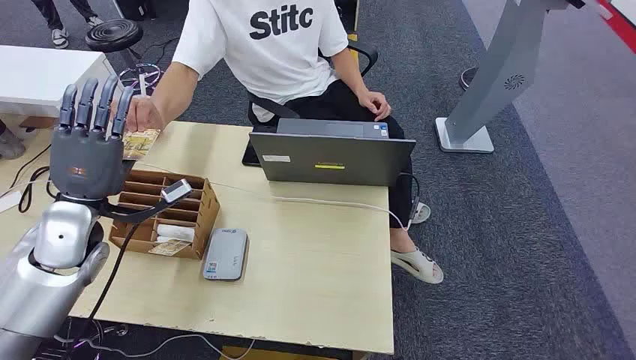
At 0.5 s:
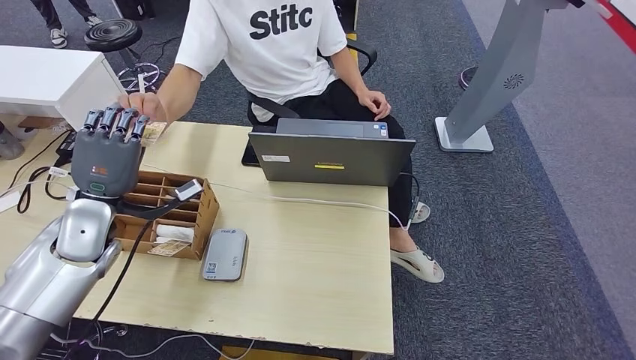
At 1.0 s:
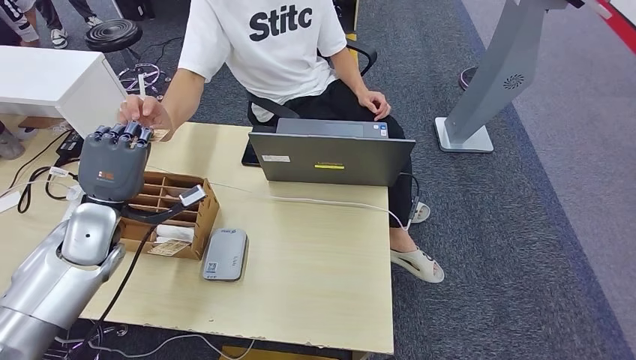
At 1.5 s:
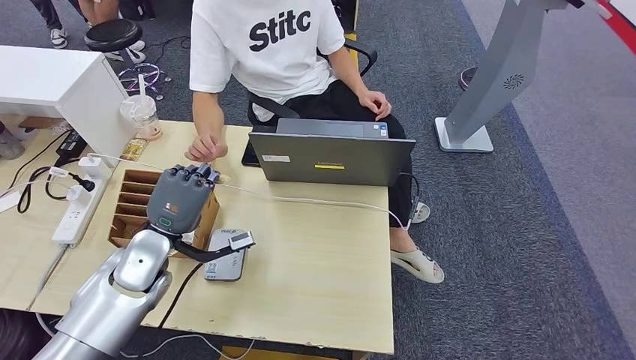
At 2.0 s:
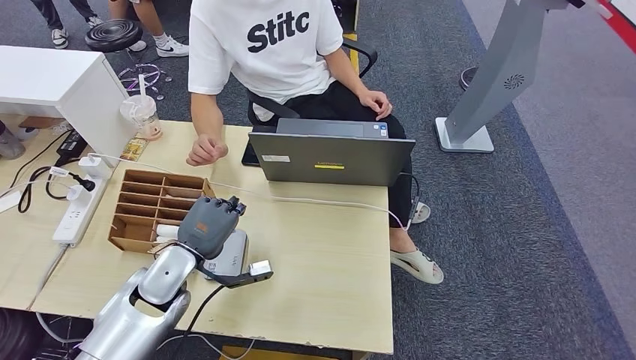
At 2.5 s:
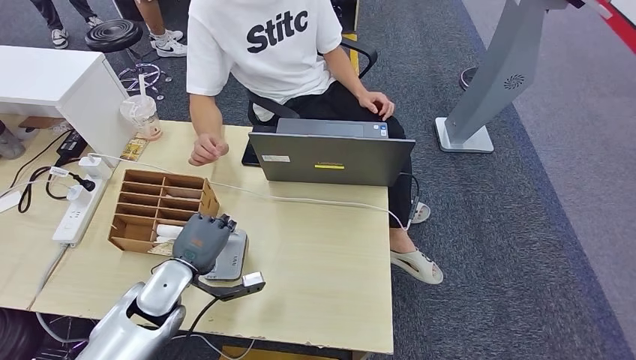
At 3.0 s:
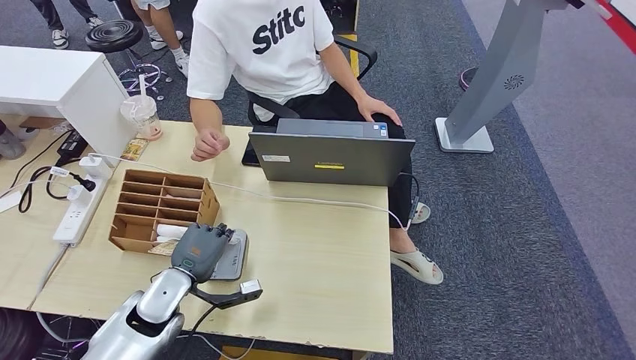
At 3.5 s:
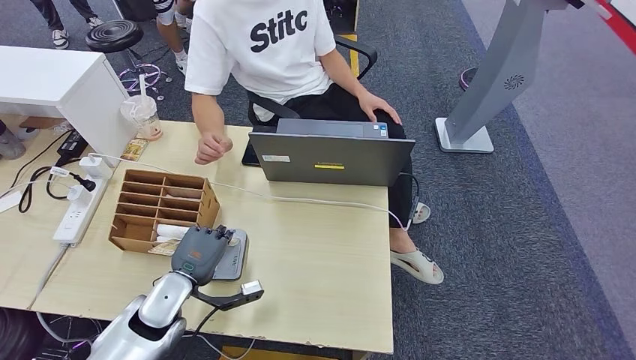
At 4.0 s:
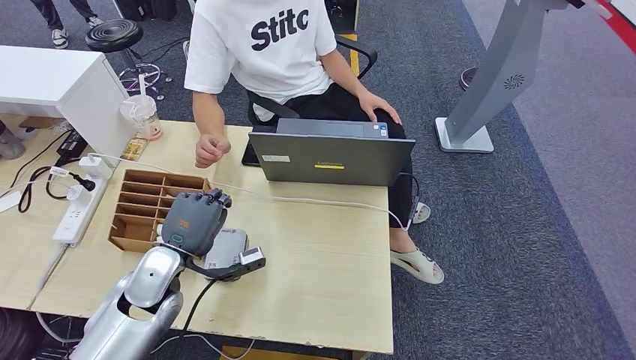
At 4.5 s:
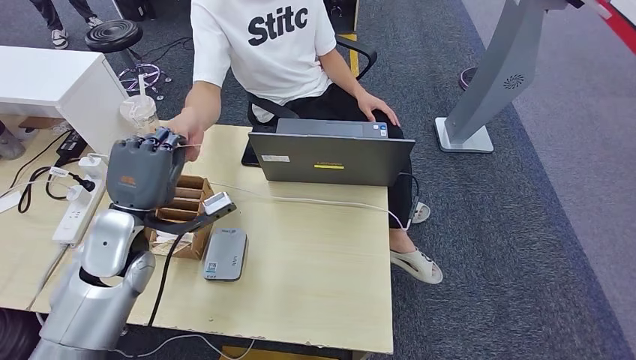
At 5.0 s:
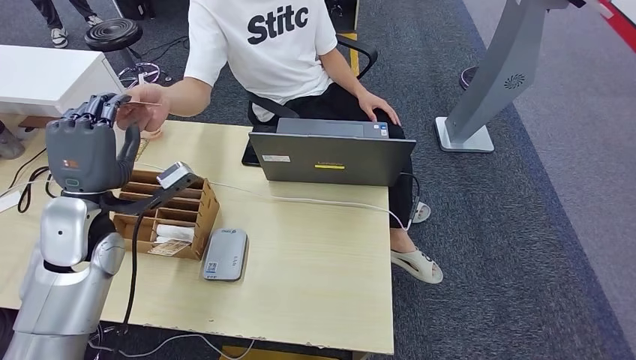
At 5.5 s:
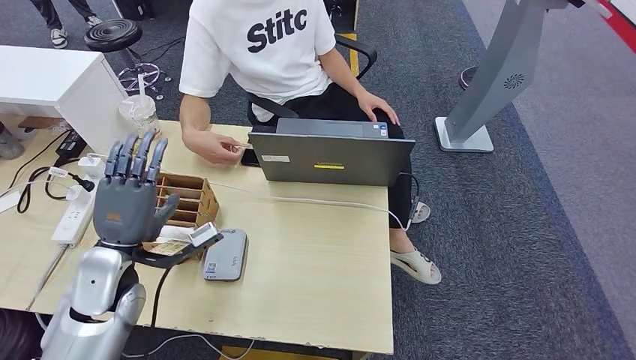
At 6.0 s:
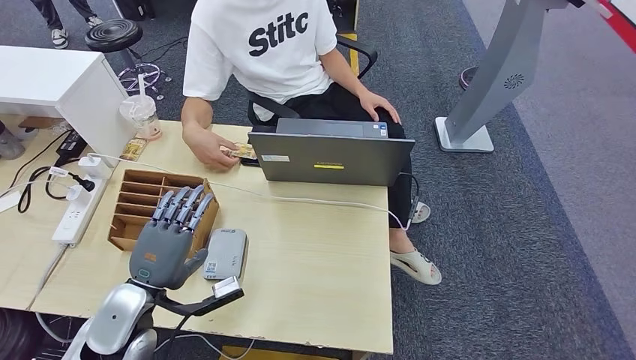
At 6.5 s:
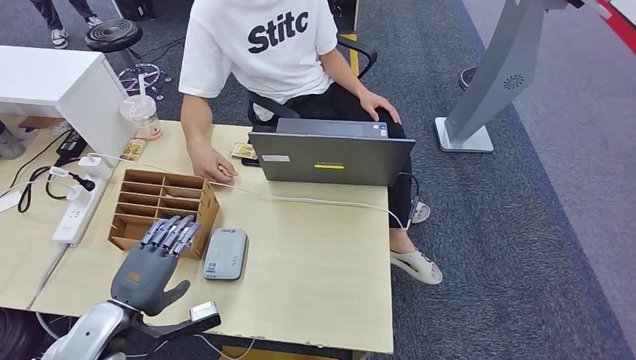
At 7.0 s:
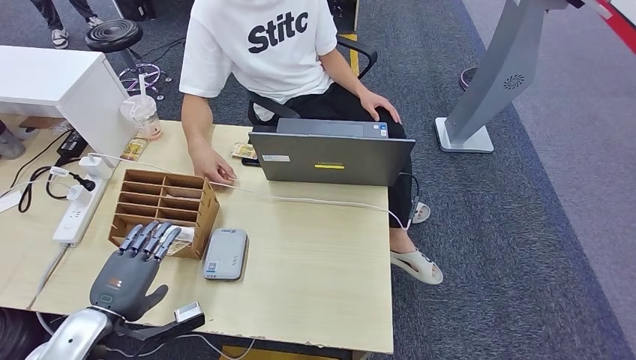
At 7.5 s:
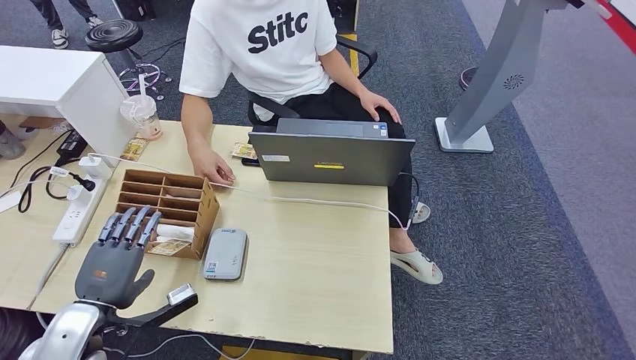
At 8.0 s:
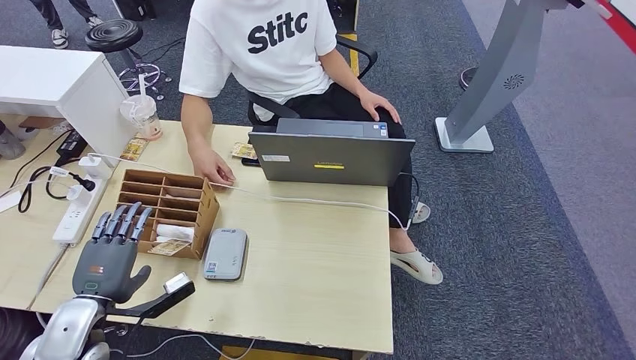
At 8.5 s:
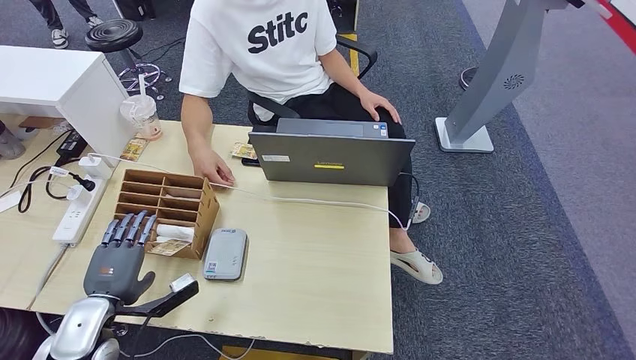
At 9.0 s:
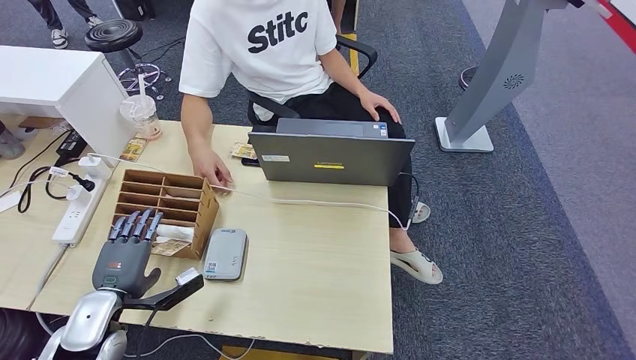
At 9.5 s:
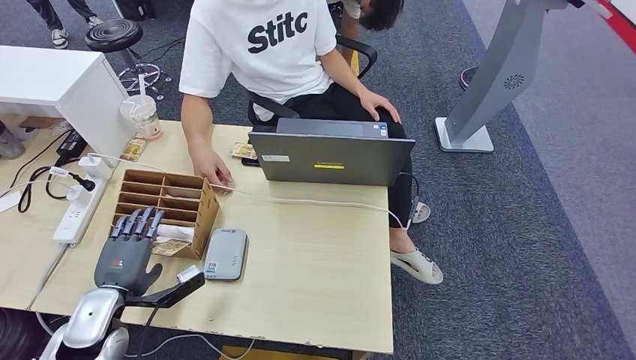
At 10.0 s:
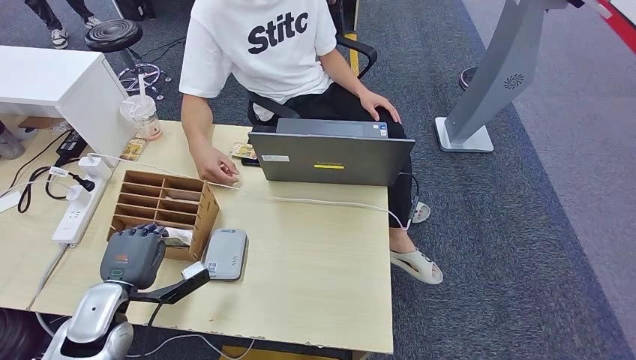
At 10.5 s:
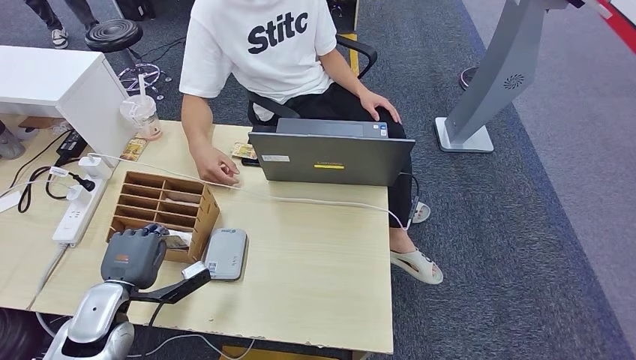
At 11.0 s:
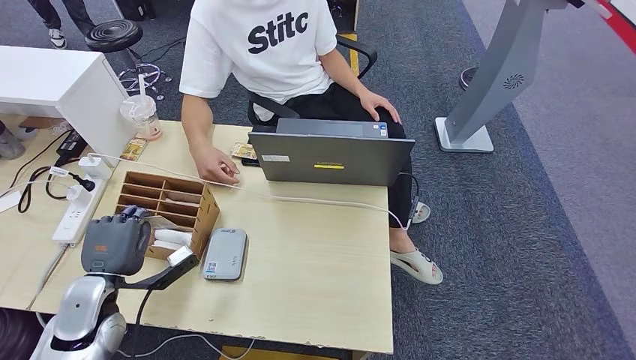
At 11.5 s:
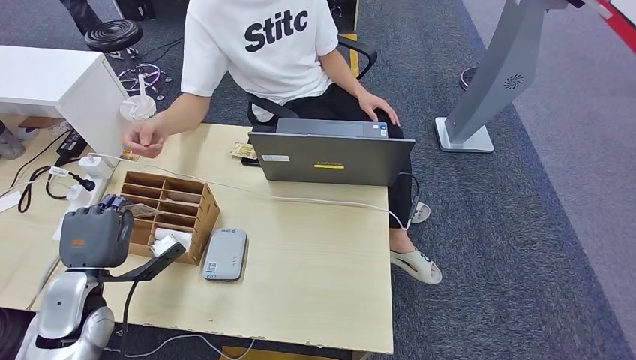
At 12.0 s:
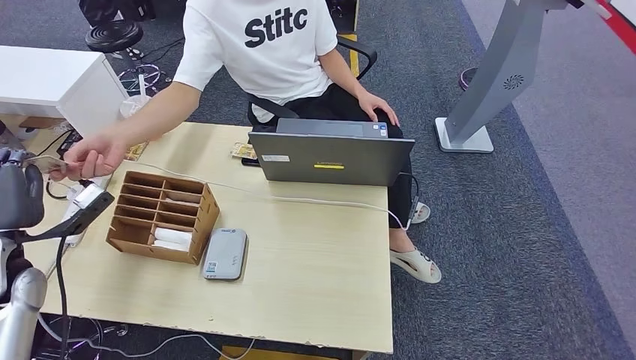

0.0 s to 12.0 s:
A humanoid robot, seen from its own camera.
Step, 0.0 to 1.5 s: Take the ID card from the person's hand.
Step, 2.0 to 4.0 s: Place the ID card on the card reader.
Step, 4.5 to 7.5 s: Hand the ID card to the person.
Step, 8.0 to 11.5 s: Pick up the room key from the key card box.
2.0 to 4.0 s: The hands make only small movements.
4.0 to 6.0 s: The left hand travels backward by about 5 cm, and reaches some 10 cm upward, then returns.
6.0 to 8.0 s: The left hand goes approximately 10 cm to the left.
8.0 to 10.0 s: The hands move only a little.
10.0 to 12.0 s: The left hand moves upward, to the left and forward, approximately 15 cm.

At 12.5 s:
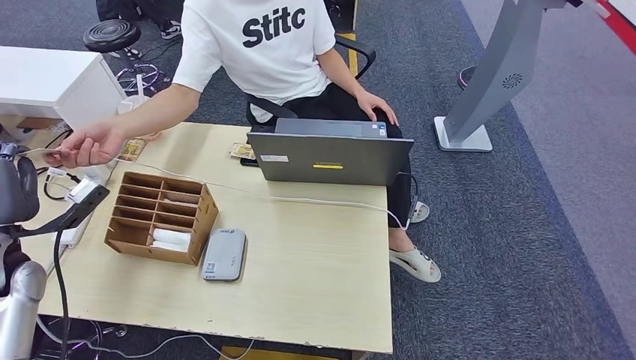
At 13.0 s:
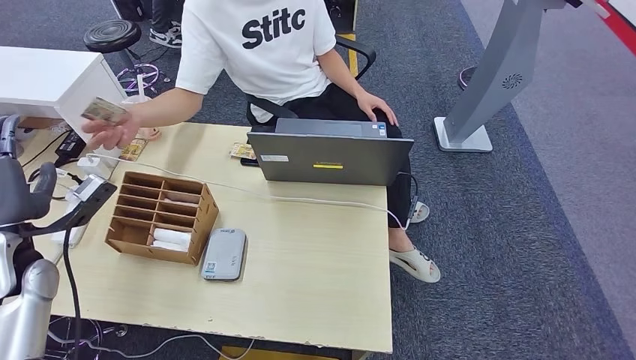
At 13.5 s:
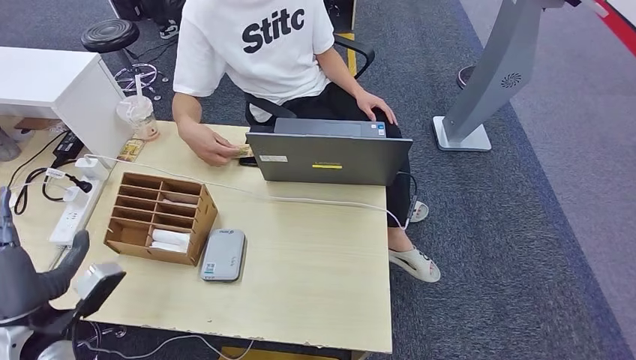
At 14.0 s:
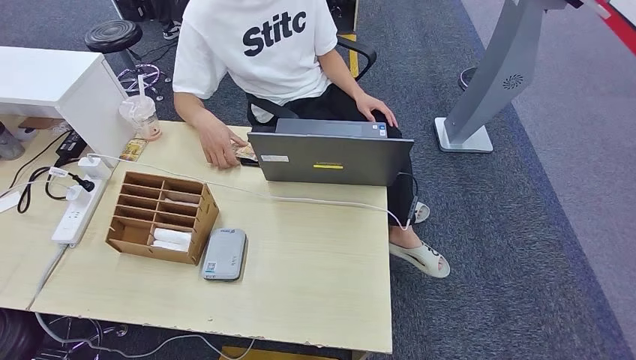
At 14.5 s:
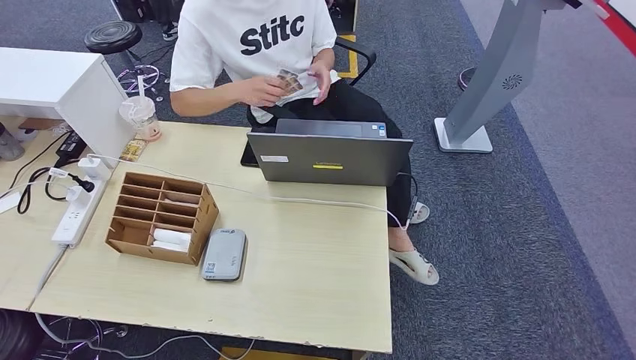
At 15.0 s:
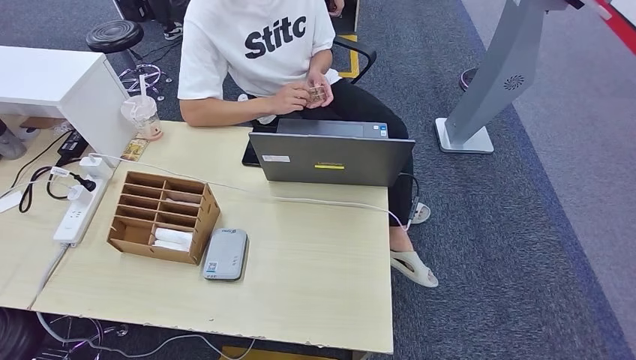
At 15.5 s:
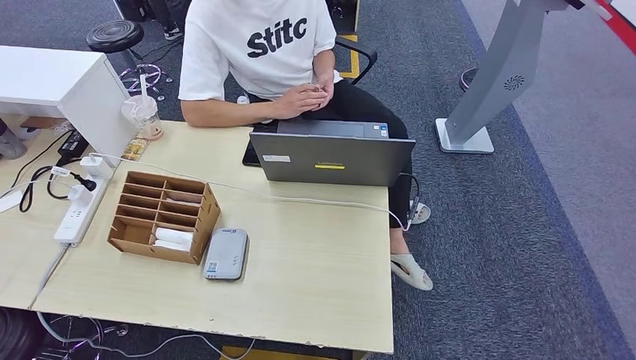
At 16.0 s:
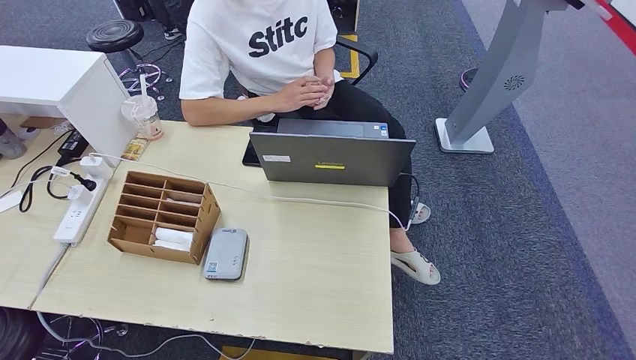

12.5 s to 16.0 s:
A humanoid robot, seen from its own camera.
Step, 12.5 to 16.0 s: Hand the room key to the person.
12.5 to 14.5 s: The left hand is displaced backward and downward by roughly 40 cm.
14.5 to 16.0 s: The left hand heads to the right and downward, covering roughly 15 cm.

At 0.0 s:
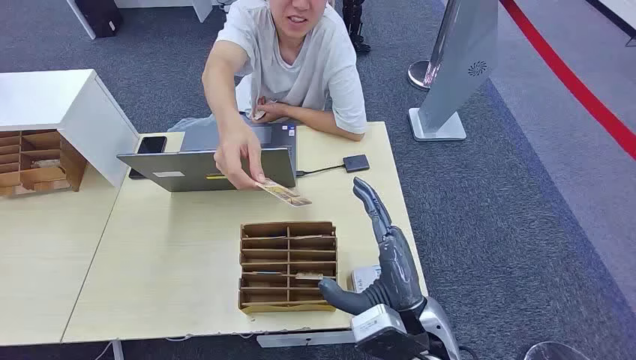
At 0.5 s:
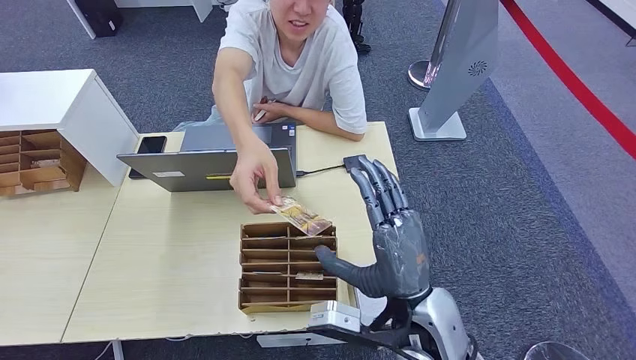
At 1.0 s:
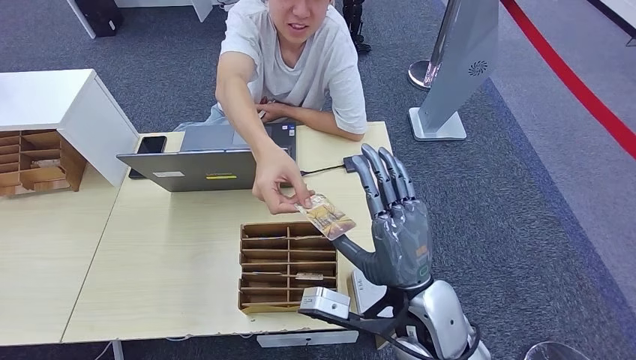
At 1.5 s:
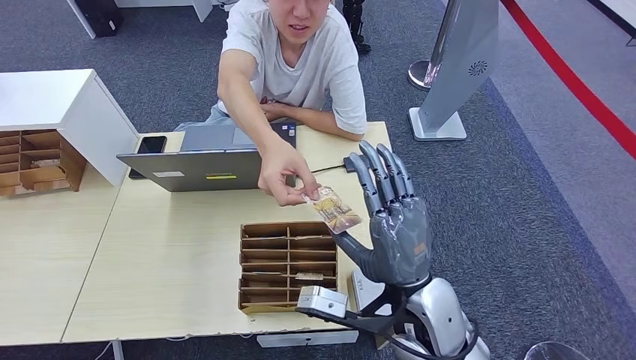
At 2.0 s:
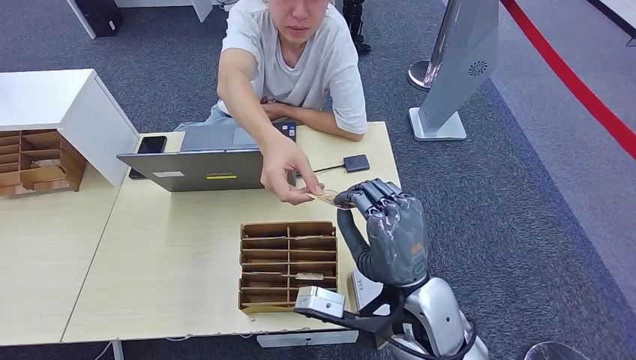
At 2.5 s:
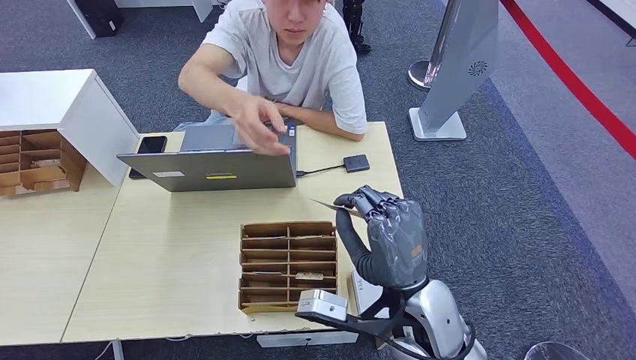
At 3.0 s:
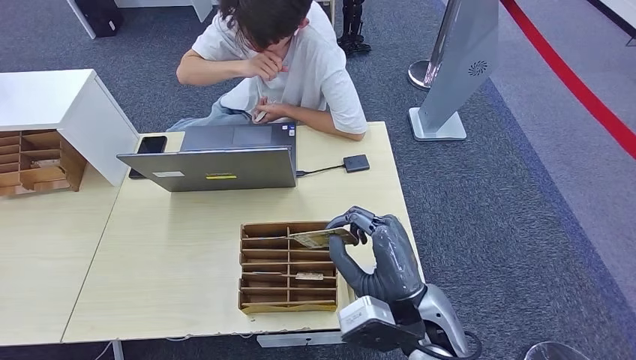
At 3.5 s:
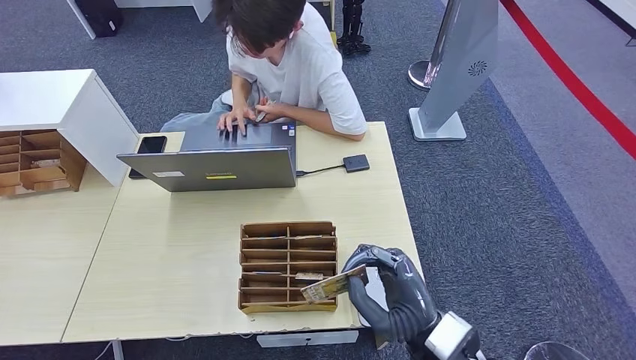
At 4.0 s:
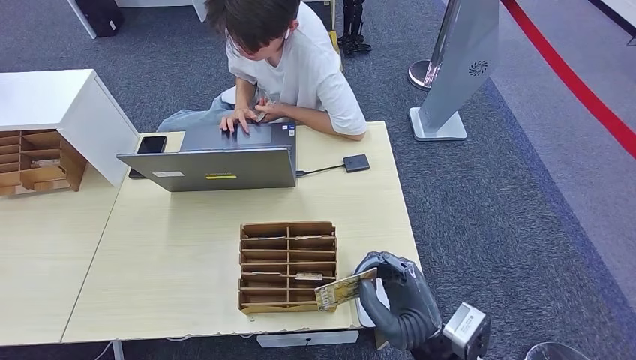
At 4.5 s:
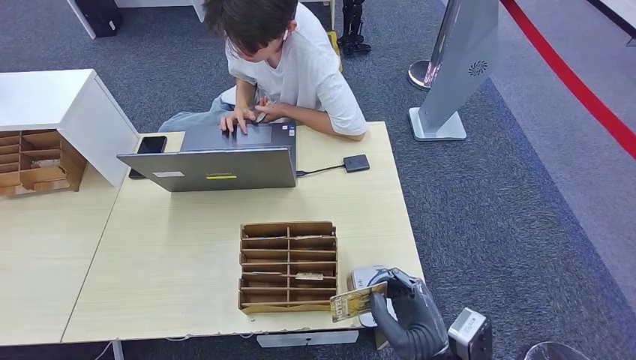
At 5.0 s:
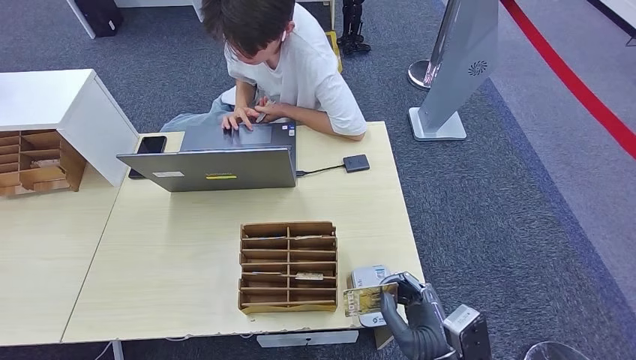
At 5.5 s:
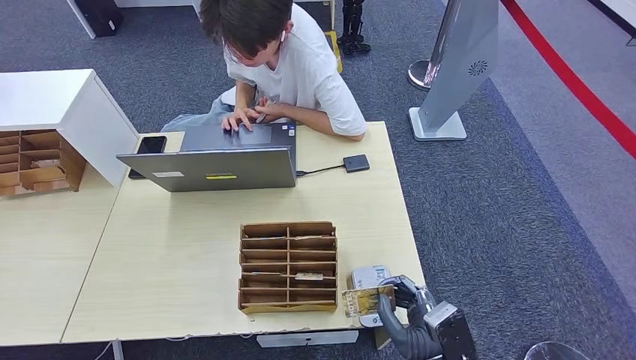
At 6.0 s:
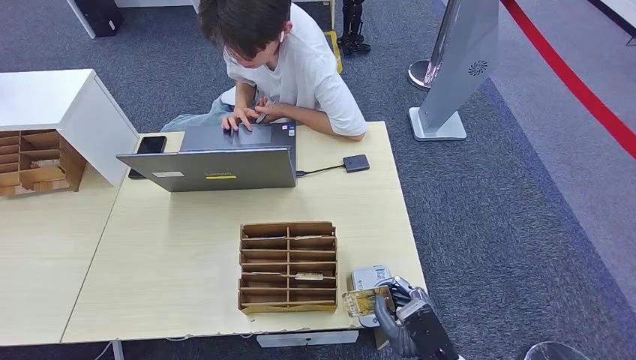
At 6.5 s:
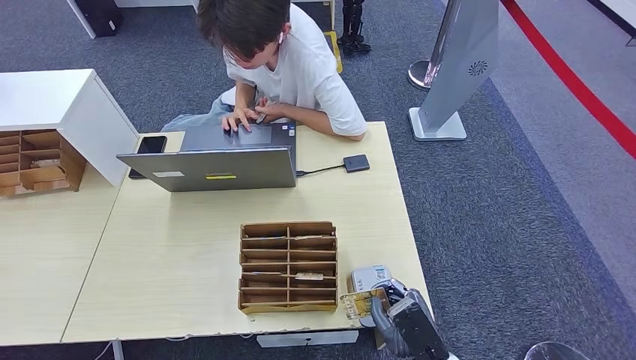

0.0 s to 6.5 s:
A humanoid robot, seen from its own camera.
Step, 0.0 to 1.5 s: Take the ID card from the person's hand.
2.0 to 4.5 s: The right hand is displaced downward, backward and to the right by roughly 15 cm. Meanwhile the left hand is displaced to the right by roughly 5 cm.
